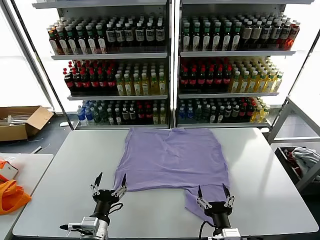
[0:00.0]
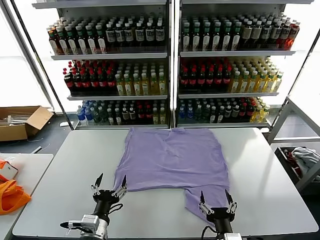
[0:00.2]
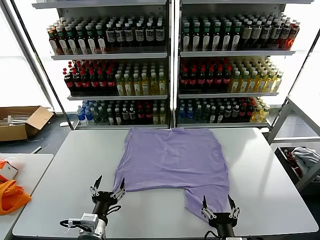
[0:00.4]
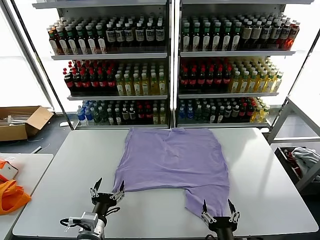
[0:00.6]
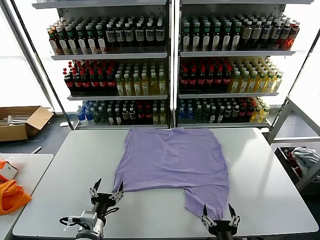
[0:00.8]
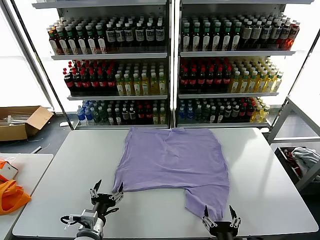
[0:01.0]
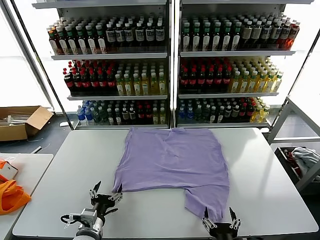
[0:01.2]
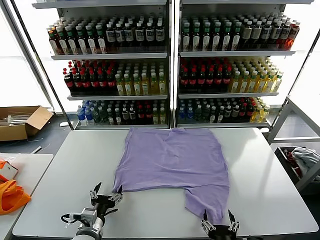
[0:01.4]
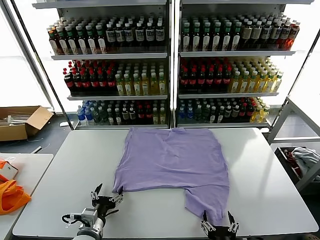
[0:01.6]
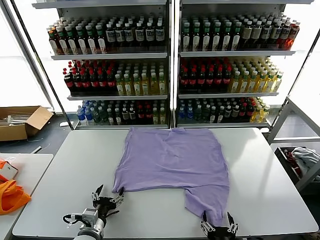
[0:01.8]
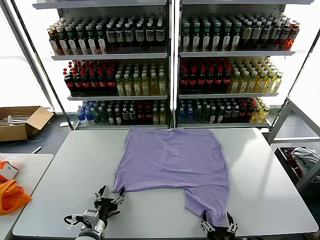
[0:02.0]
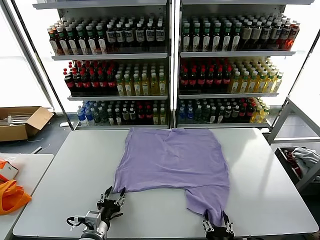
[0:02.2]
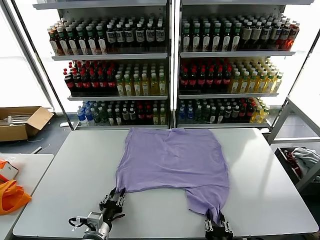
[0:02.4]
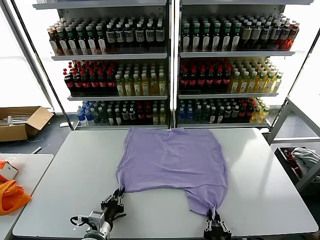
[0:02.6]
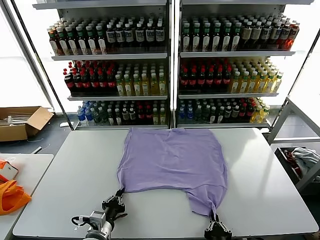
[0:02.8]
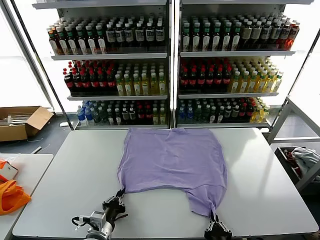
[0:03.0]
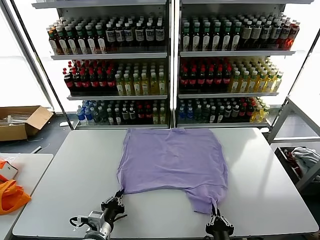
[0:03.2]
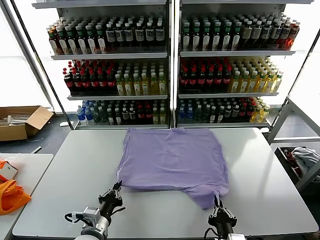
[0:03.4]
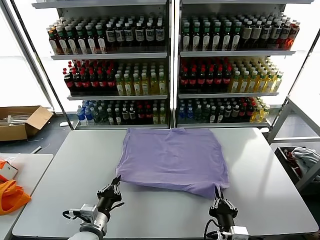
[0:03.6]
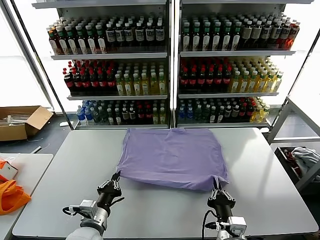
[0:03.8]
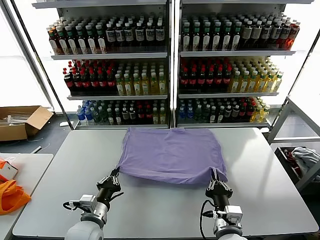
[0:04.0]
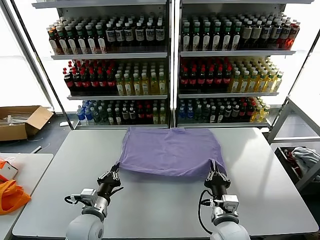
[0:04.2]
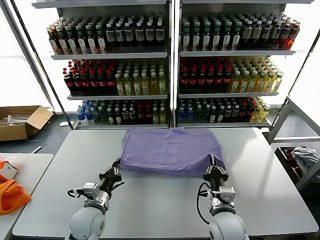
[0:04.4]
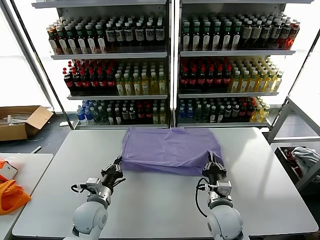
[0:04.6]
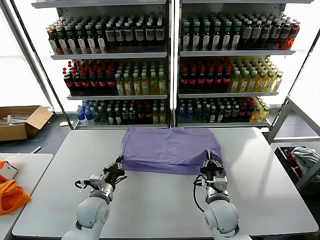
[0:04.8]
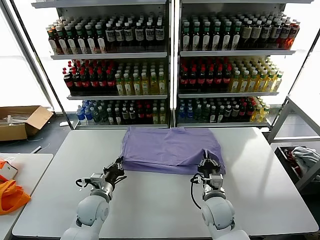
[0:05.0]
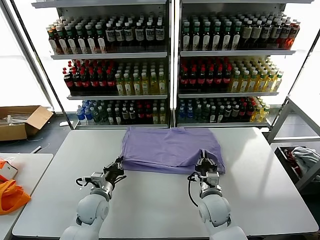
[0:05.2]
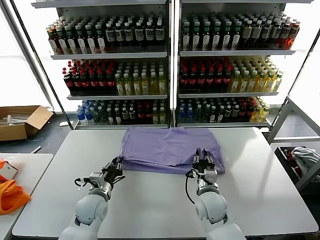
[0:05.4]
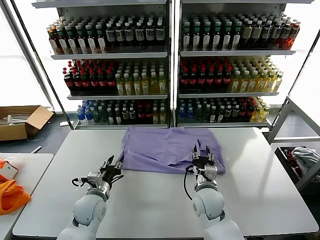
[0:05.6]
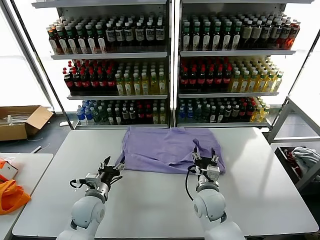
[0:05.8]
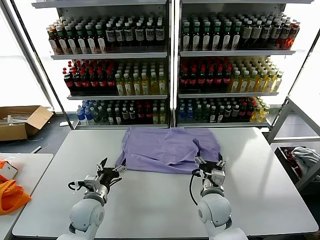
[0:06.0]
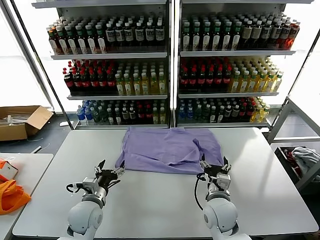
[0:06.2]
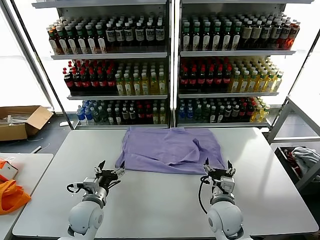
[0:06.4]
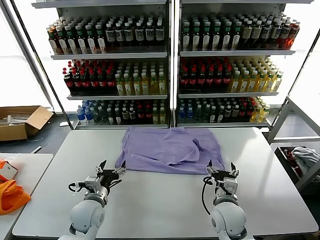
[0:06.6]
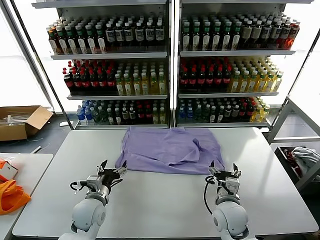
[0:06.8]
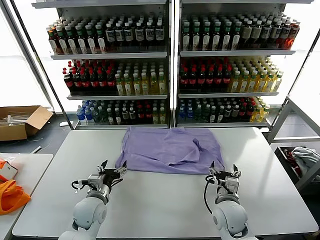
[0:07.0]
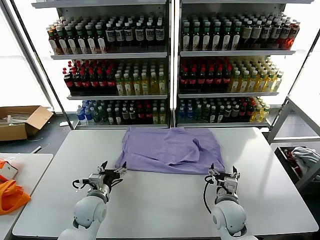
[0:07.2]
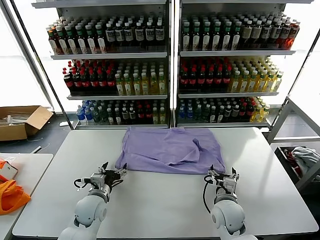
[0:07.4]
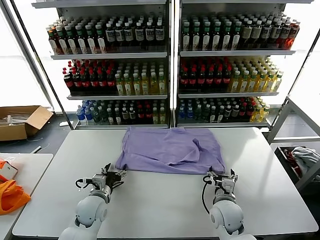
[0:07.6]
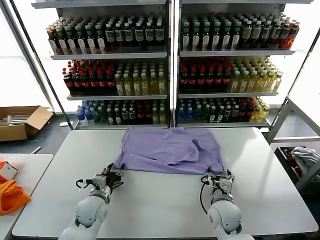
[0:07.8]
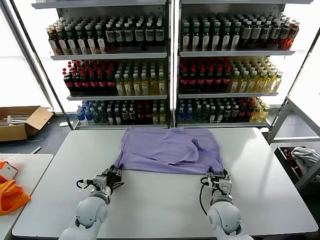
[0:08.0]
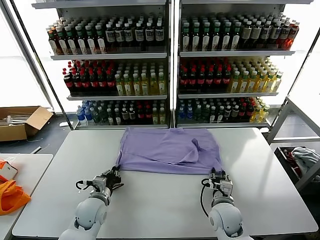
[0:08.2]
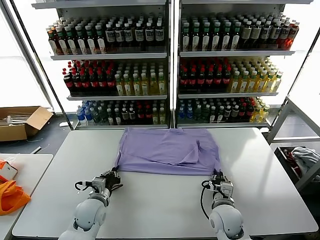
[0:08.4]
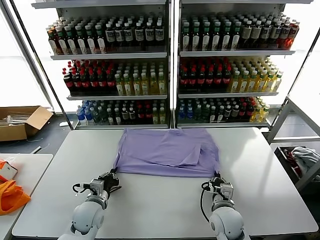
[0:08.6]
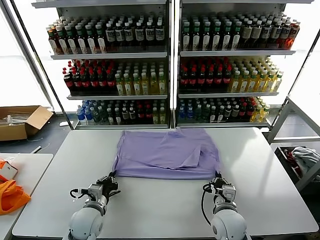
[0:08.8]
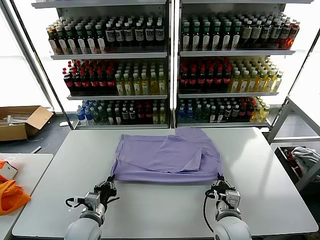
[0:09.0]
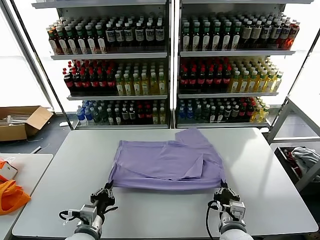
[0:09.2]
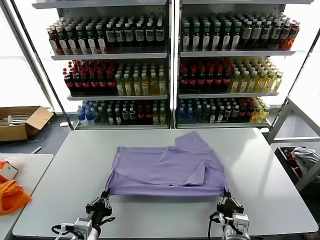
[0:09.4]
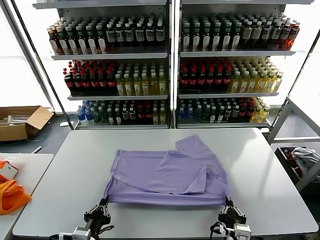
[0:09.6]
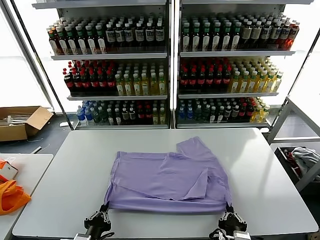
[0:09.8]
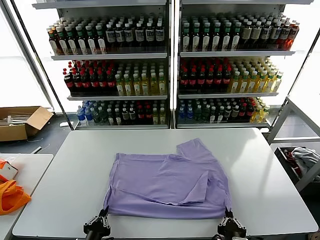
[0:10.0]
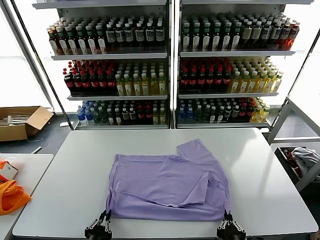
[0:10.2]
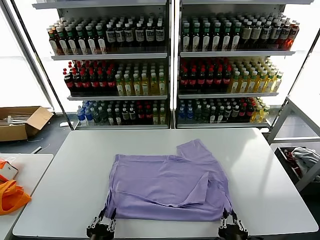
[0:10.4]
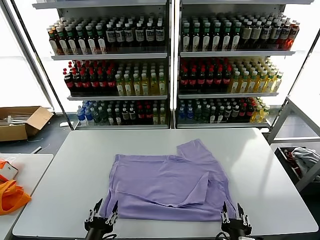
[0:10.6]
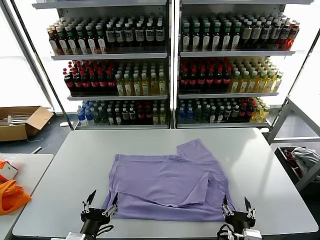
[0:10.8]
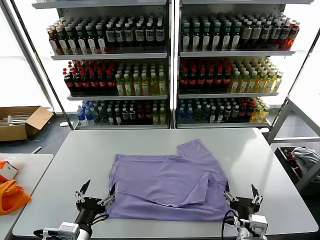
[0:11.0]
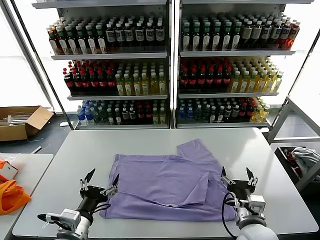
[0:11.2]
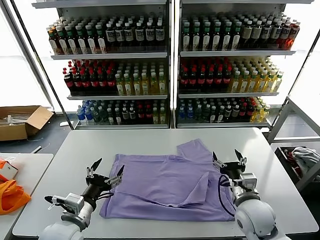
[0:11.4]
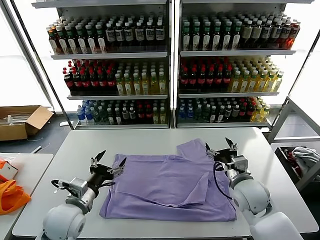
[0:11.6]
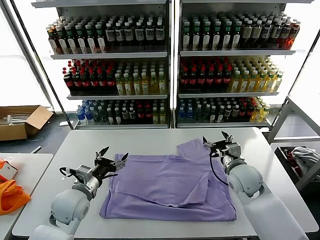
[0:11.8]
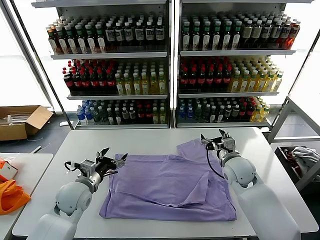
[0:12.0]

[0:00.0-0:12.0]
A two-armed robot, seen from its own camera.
Task of the whole recording: fold and organize the clothes.
Step, 0:00.0 to 0:03.2: use both grippers simultaneously to clamp the lower edge of the clothing fabric.
Step, 0:03.4 to 0:05.6: use both grippers to drag the lower edge of the fabric forward and fold it over the upper edge.
Step, 0:05.8 to 0:10.4: Drag the clothes downward with both gripper.
0:01.6 to 0:03.0: The right gripper closes. The left gripper closes its fingers.
0:03.0 to 0:04.4: The right gripper moves forward, about 15 cm, while the left gripper travels forward by about 10 cm.
0:04.4 to 0:06.0: The left gripper opens its fingers. Meanwhile the right gripper opens its fingers.
0:06.0 to 0:07.6: The grippers stay close to where they were, moving slightly.
0:07.6 to 0:09.0: Both grippers travel together backward, some 10 cm. The right gripper closes its fingers. The left gripper closes.
0:09.0 to 0:10.4: The two grippers go roughly 15 cm backward. The left gripper opens, while the right gripper opens.
0:10.4 to 0:12.0: The two grippers go approximately 30 cm forward. The right gripper opens. Meanwhile the left gripper opens up.

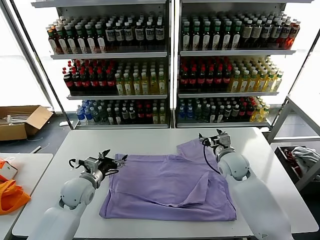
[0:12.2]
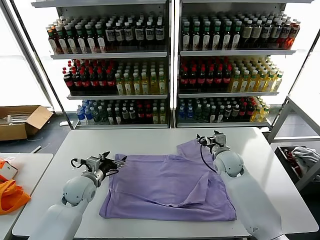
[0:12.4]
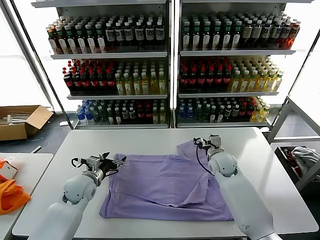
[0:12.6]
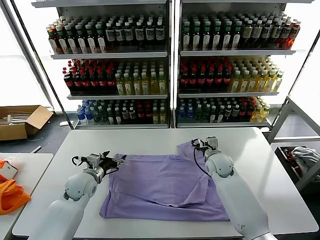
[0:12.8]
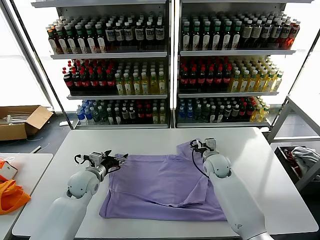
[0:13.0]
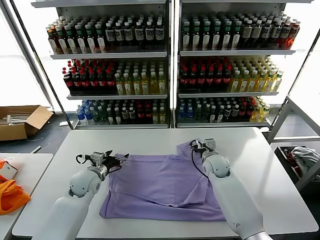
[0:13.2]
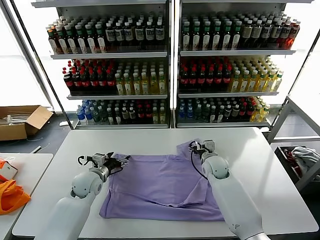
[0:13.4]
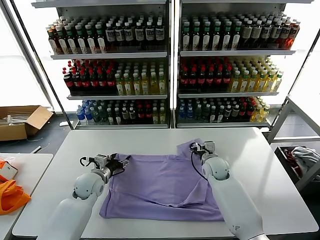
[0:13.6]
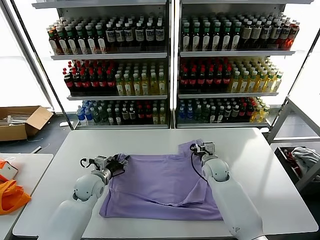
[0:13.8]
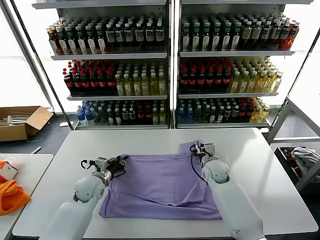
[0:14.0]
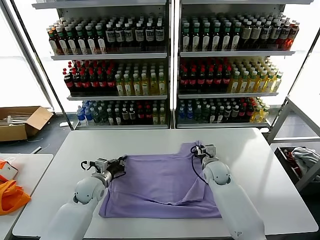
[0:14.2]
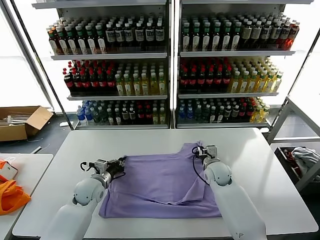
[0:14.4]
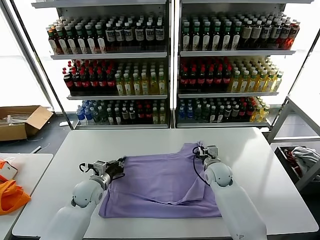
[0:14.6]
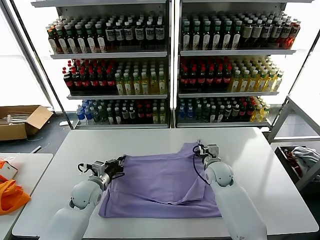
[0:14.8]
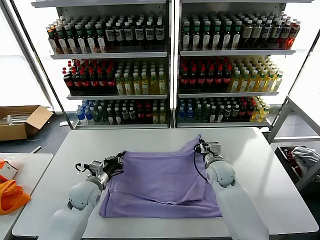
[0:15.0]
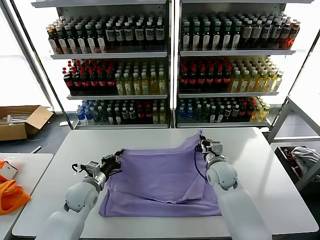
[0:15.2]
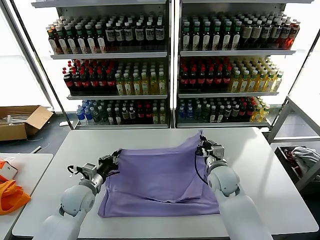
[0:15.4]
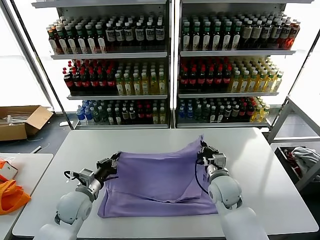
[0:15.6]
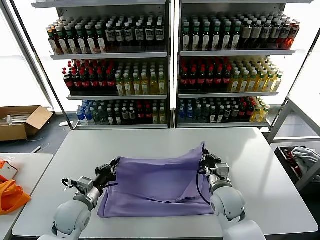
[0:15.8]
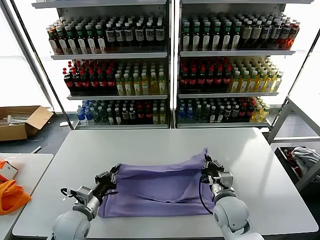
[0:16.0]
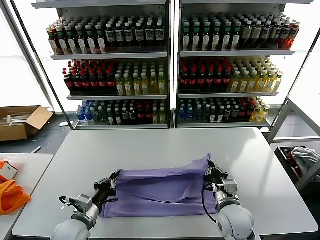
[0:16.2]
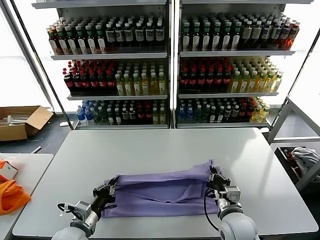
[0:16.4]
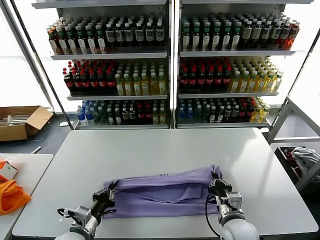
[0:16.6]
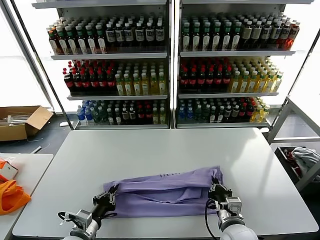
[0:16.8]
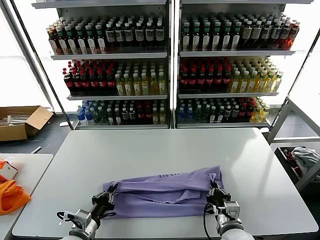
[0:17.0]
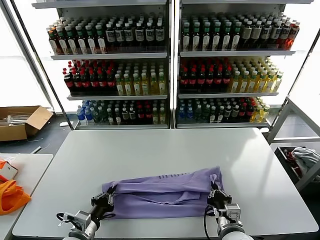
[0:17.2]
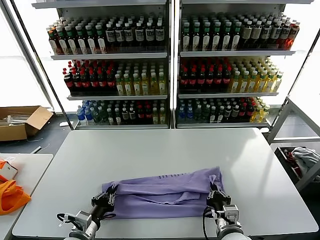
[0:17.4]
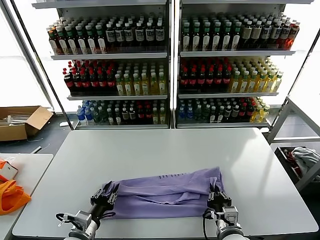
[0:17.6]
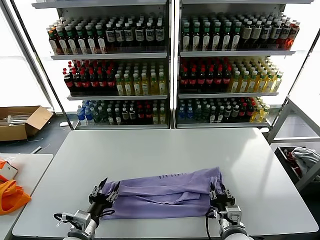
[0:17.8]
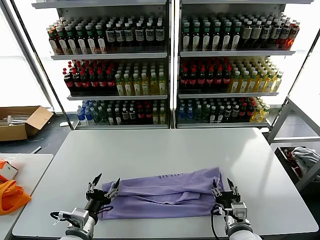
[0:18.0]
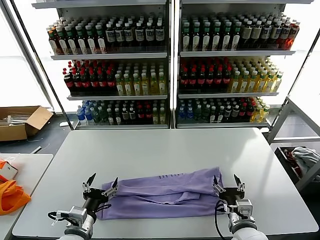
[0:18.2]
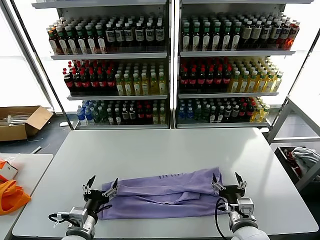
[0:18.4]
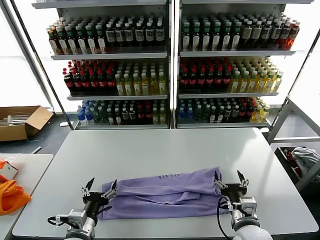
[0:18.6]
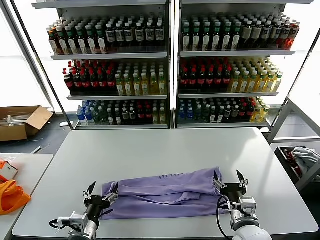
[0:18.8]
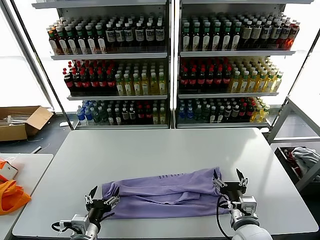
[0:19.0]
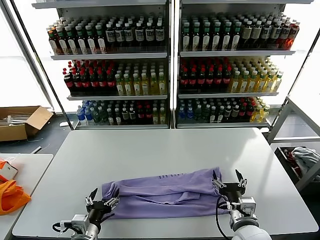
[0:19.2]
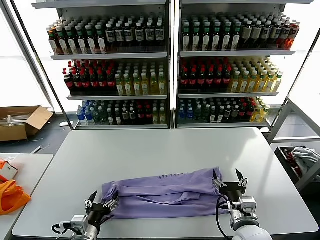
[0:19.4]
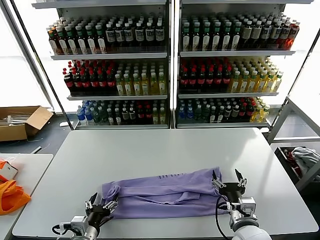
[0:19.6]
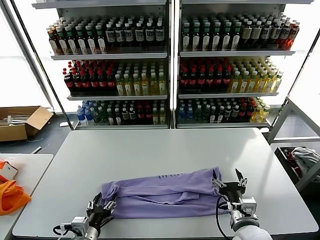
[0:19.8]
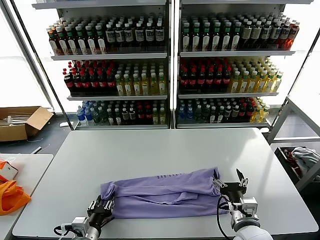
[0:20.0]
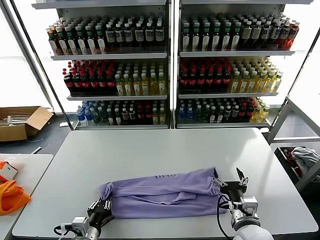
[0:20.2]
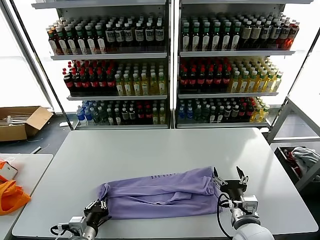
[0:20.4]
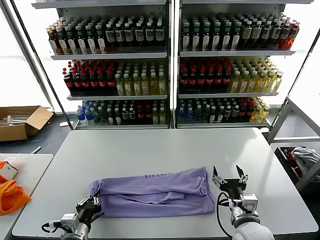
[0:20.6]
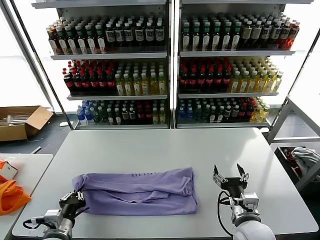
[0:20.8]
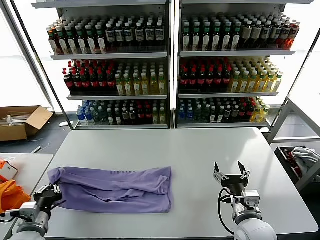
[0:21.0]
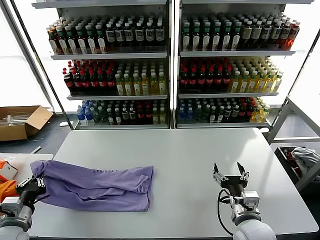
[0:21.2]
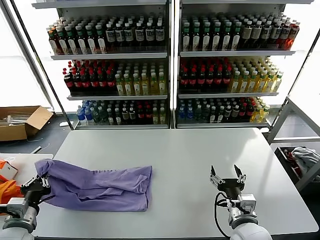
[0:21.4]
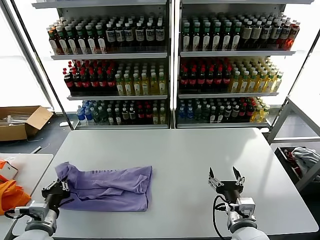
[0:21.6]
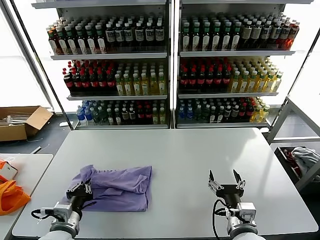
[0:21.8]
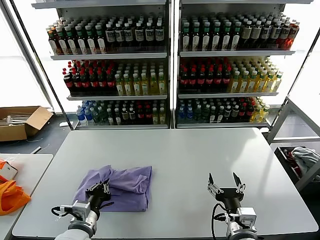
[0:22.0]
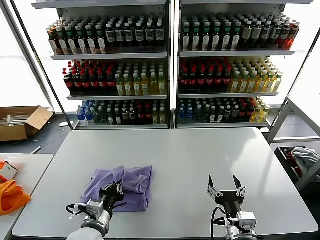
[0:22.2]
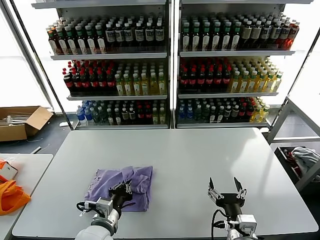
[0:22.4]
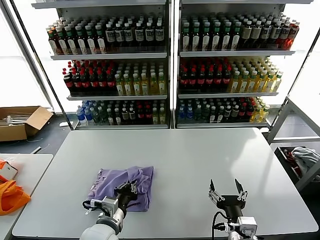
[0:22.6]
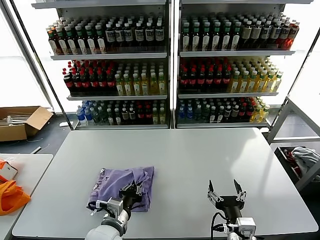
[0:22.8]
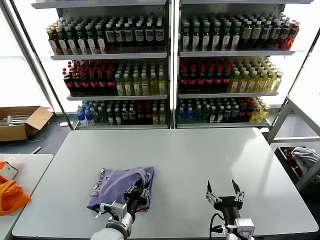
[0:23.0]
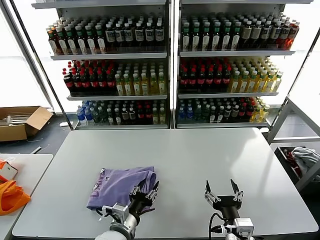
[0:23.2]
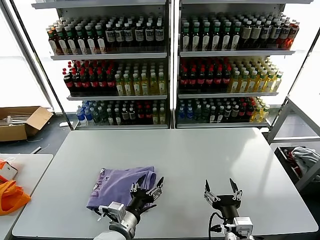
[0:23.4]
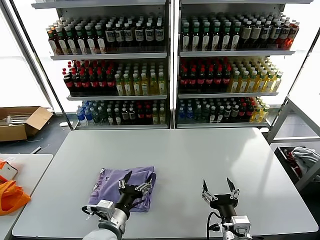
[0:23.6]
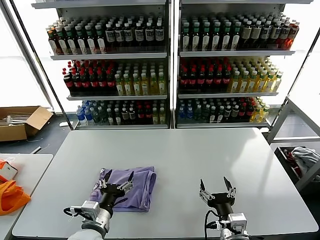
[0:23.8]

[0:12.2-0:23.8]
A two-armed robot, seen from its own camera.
Task of the whole recording: fold and organize the clothes.
Step, 0:12.2 to 0:14.8: use both grippers simultaneously to clamp the upper edge of the clothing fabric.
Step, 0:15.0 to 0:17.8: use both grippers to drag the upper edge of the fabric backward and fold it over the lower edge.
Step, 0:18.2 to 0:20.4: use the left gripper to clamp the left edge of the fabric.
Step, 0:20.6 to 0:23.0: use the left gripper to drag the left edge of the fabric to the left and folds it over the right edge.
0:12.2 to 0:13.6: The right gripper moves downward, roughly 5 cm. Meanwhile the left gripper moves about 5 cm.
0:13.6 to 0:15.0: The left gripper closes its fingers, while the right gripper closes its fingers.
0:15.0 to 0:16.6: The grippers both shift backward by approximately 20 cm.
0:16.6 to 0:18.0: The right gripper opens its fingers. Meanwhile the left gripper opens.
0:18.0 to 0:19.4: The right gripper opens up.
0:19.4 to 0:21.0: The left gripper is displaced to the left by some 10 cm, and closes up.
0:21.0 to 0:22.4: The right gripper travels backward by about 5 cm. The left gripper shifts some 15 cm to the right.
0:22.4 to 0:23.8: The left gripper opens its fingers.
